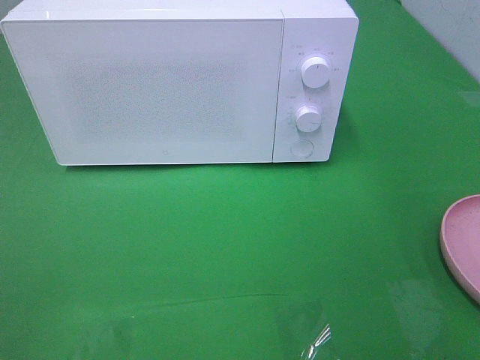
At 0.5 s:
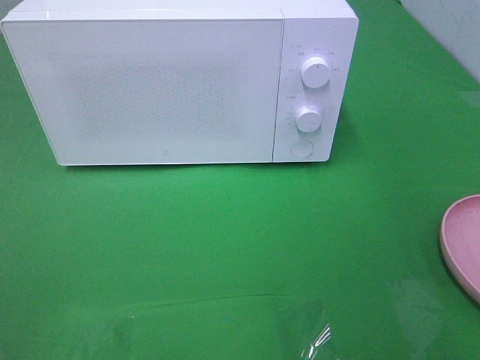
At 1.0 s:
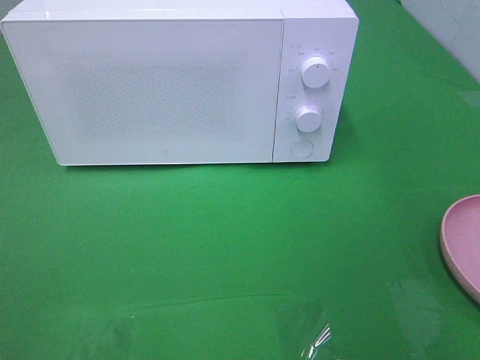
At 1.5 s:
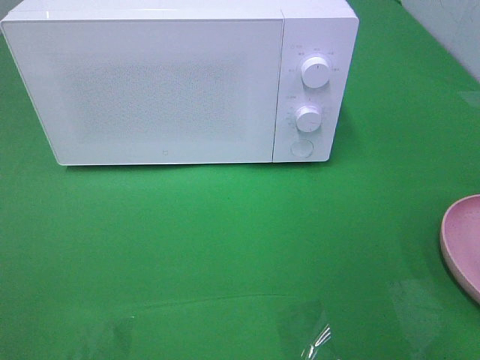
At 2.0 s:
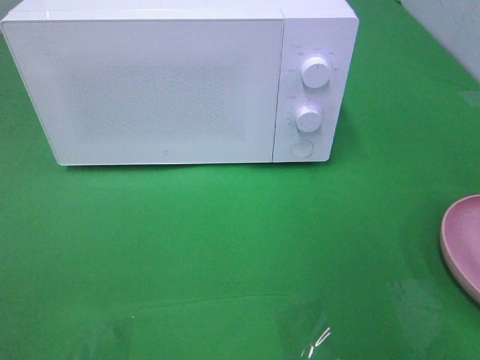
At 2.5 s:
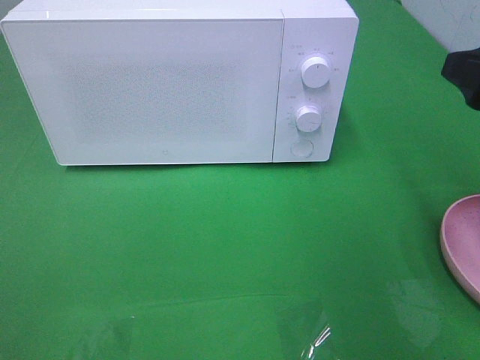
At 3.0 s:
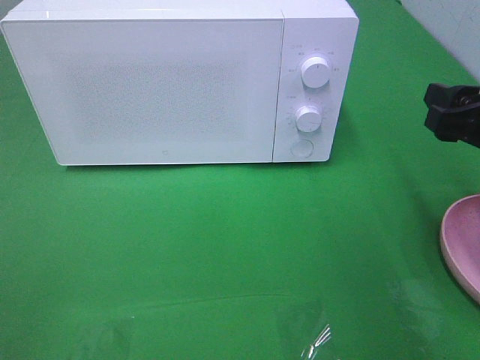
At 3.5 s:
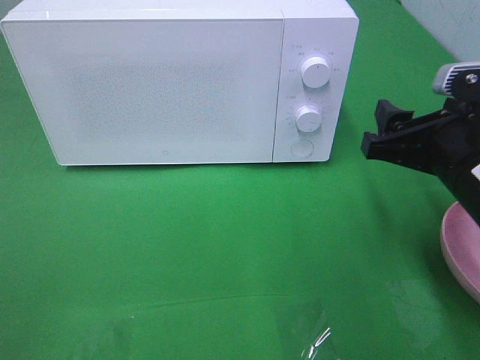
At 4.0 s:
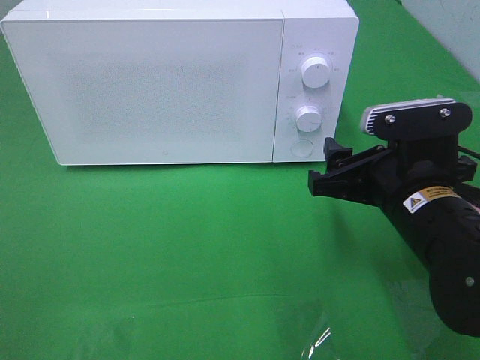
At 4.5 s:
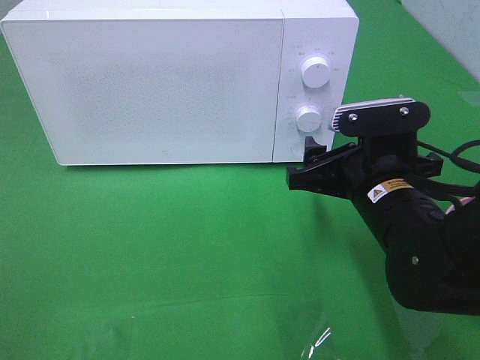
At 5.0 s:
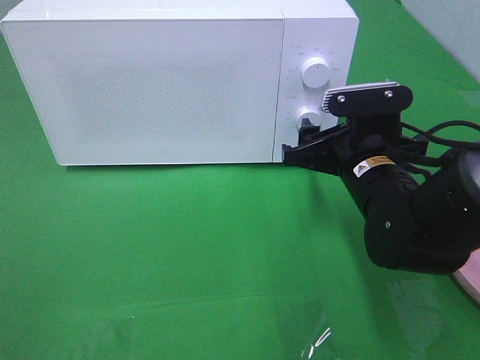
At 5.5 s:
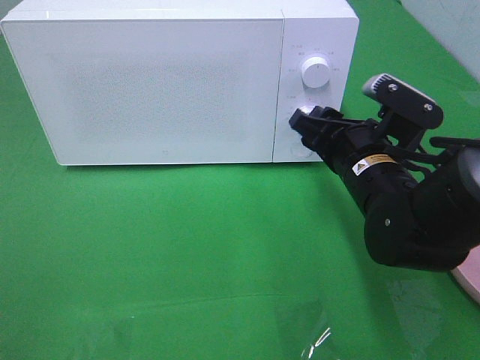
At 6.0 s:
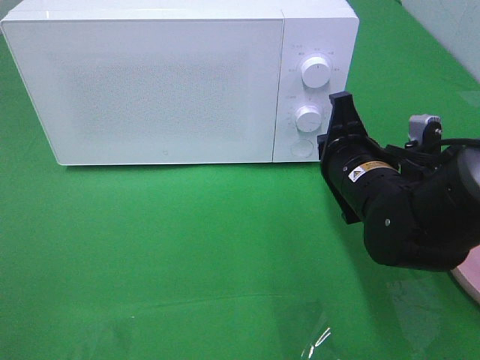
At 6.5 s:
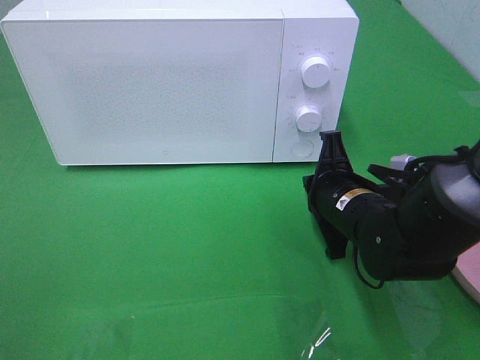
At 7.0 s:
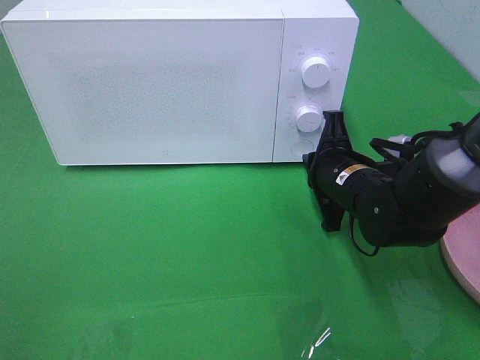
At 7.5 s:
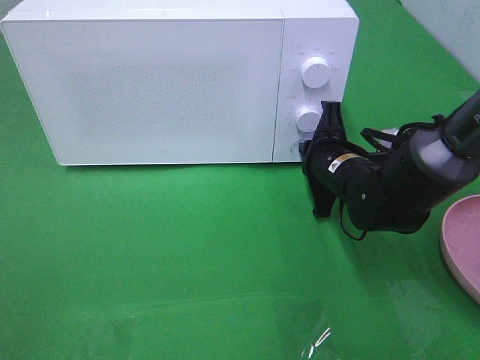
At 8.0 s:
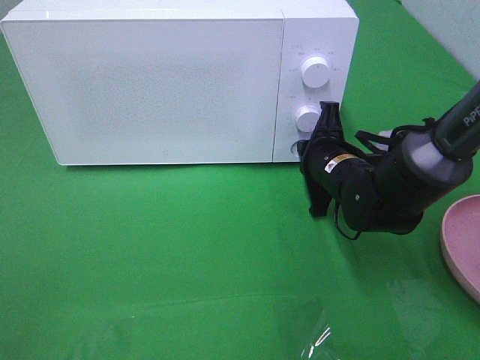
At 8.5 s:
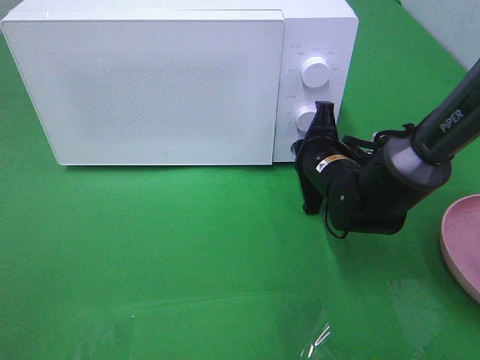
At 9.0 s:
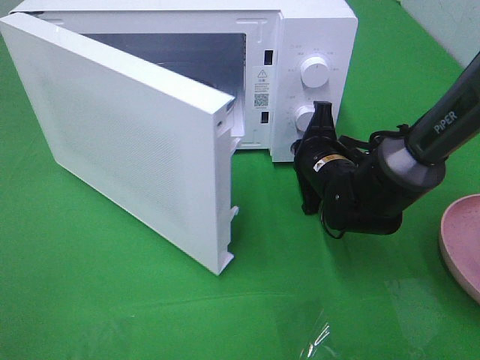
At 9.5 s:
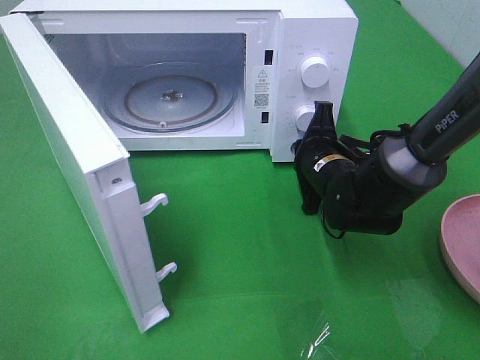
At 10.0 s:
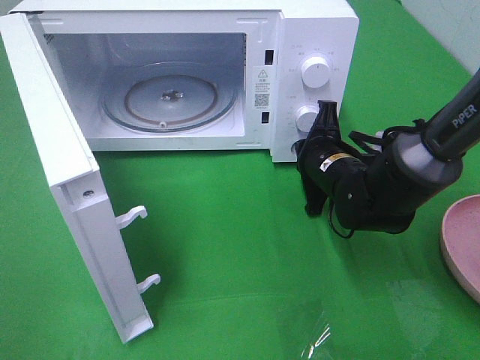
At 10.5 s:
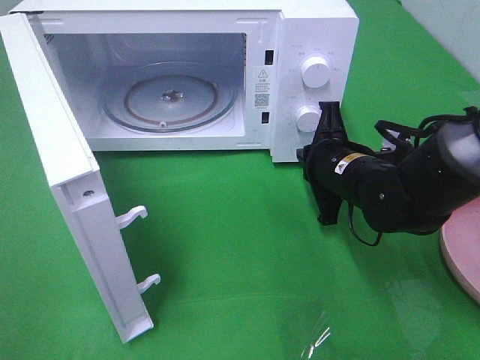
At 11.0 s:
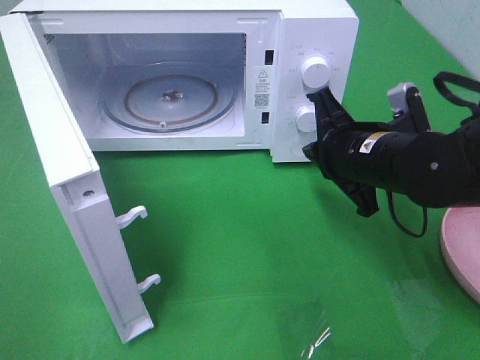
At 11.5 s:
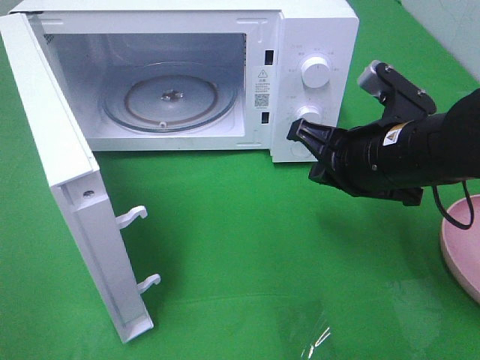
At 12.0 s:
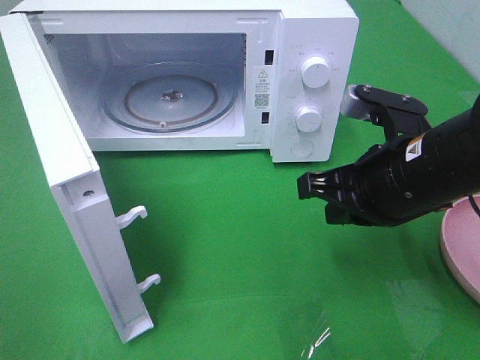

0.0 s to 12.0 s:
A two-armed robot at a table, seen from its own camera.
Task of the whole recording: Heat the burger.
Step, 0.0 to 10.5 s: Right hand: press the switch.
2.0 to 4.0 s: The right gripper shifts approximately 20 cm downward, to the left and forward.
4.0 to 6.0 s: The right gripper shifts roughly 5 cm forward, and closes up.
6.0 to 8.0 s: The right gripper heads forward, covering roughly 5 cm.
10.0 to 12.0 s: The right gripper heads backward and upward, covering approximately 15 cm.

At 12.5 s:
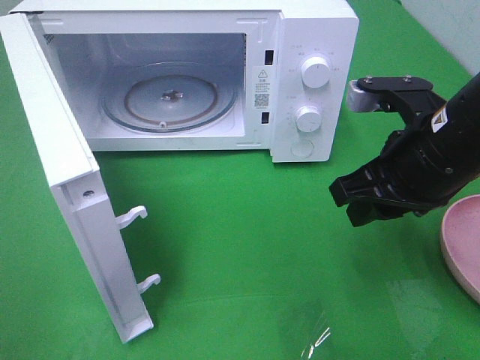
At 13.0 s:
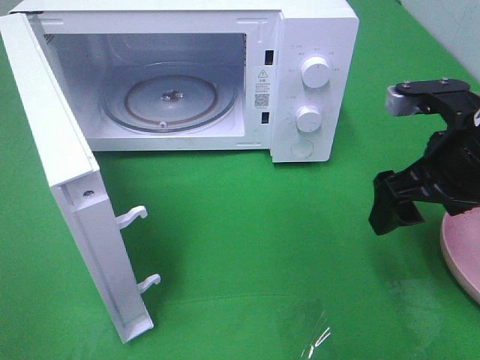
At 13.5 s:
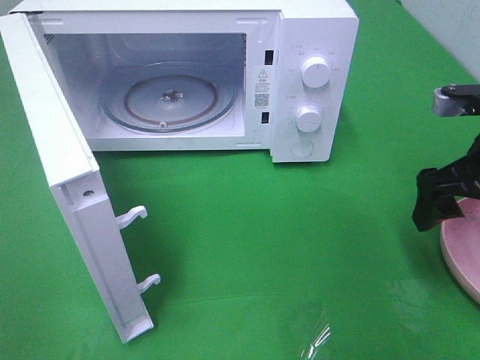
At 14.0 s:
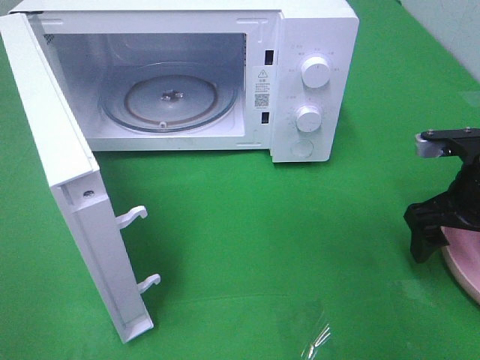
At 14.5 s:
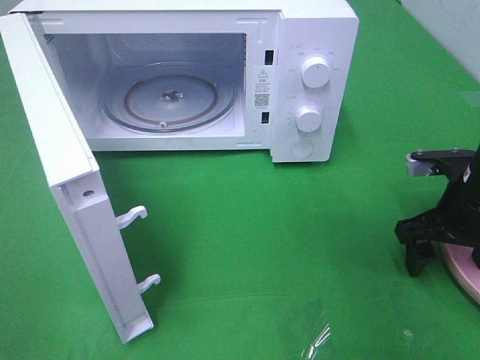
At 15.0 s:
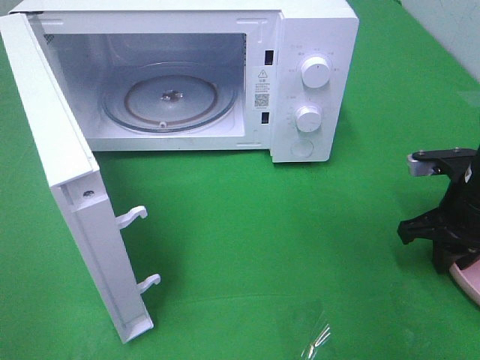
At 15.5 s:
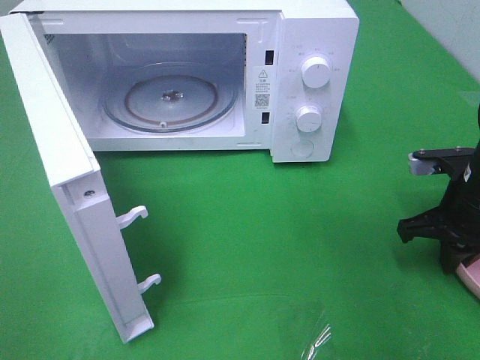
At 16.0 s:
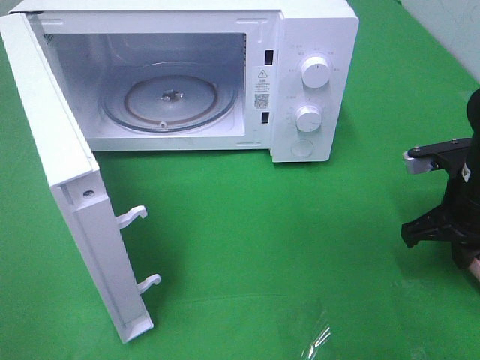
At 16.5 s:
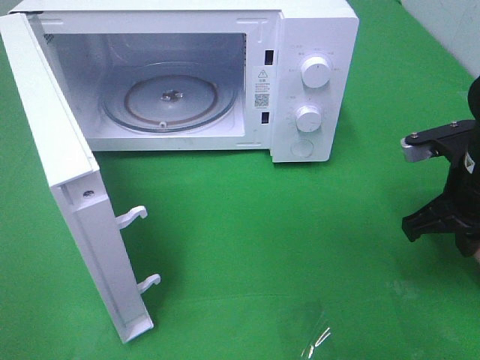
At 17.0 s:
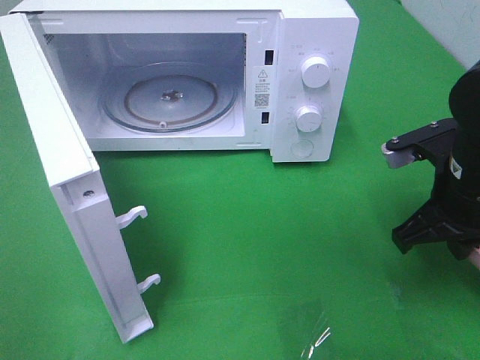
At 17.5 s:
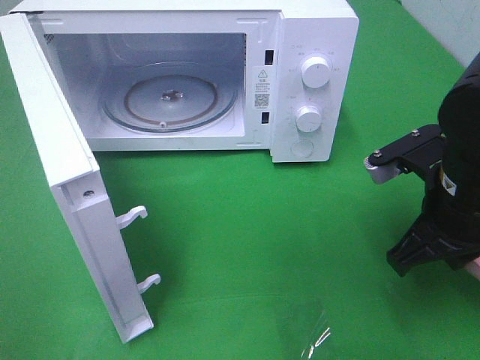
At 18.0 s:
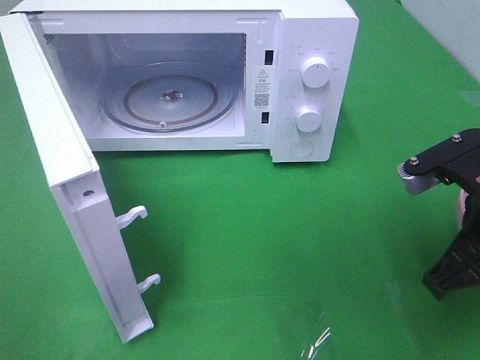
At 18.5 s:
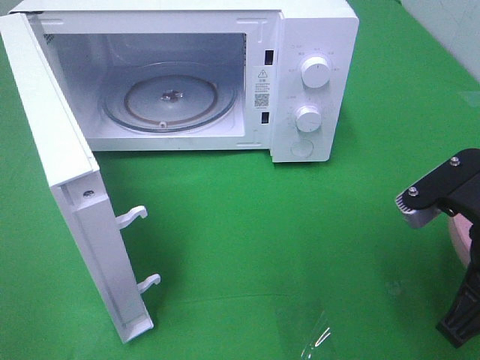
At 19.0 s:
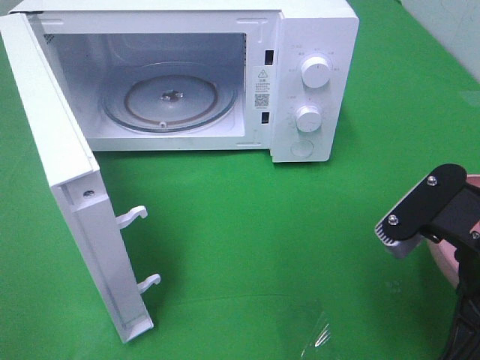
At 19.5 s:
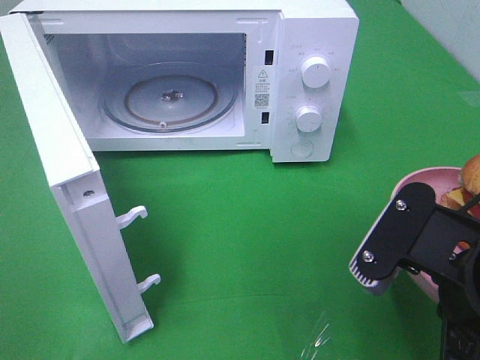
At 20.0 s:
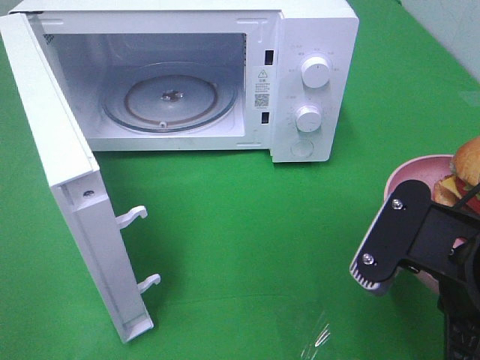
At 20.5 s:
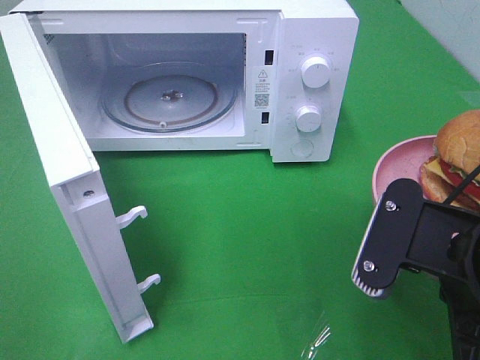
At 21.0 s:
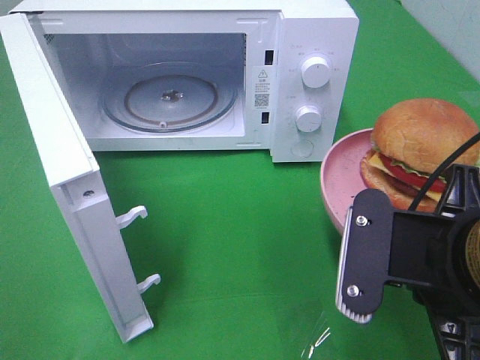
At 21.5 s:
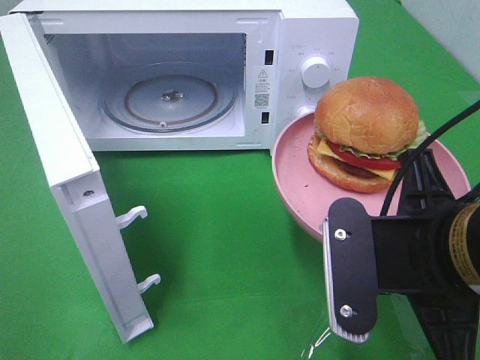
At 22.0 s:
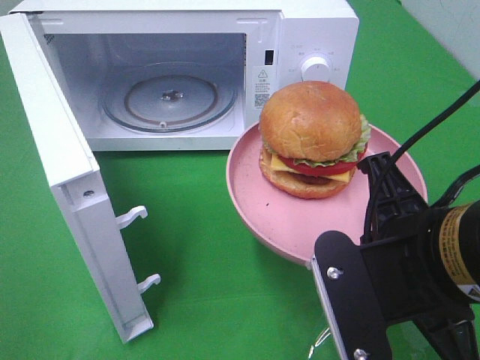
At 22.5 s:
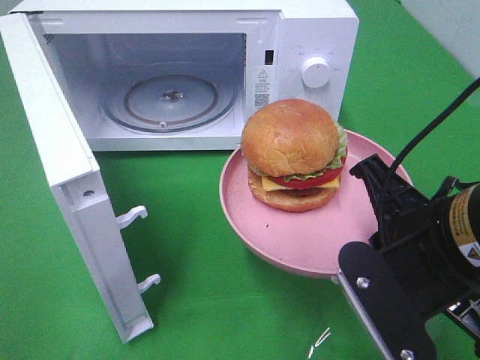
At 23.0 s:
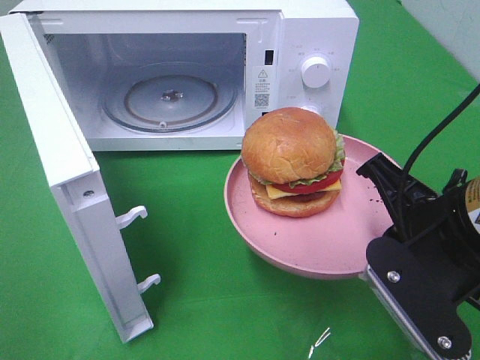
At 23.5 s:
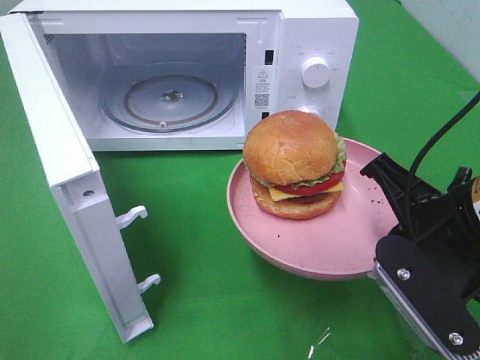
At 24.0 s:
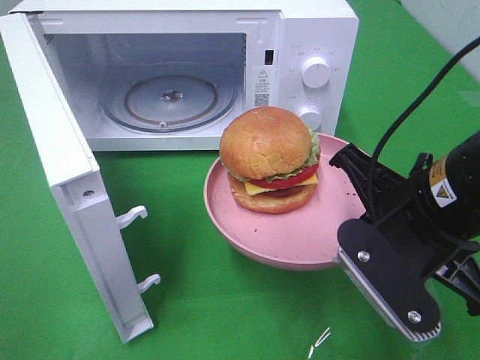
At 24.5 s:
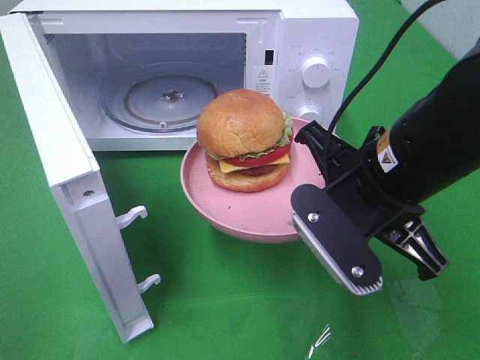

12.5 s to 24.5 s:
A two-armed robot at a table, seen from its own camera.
Task of the whole recording: Heat the burger.
Step, 12.5 to 15.5 s: Right hand: grab the plate with the hamburger.
12.5 to 14.5 s: The right gripper goes roughly 15 cm downward and to the right, and opens its fingers.
14.5 to 16.5 s: The right gripper is displaced upward by approximately 5 cm, and closes.
16.5 to 18.5 s: The right gripper travels backward by some 10 cm.
18.5 to 20.5 s: The right gripper changes place by roughly 5 cm.
22.5 to 24.5 s: The right gripper travels forward by roughly 5 cm.

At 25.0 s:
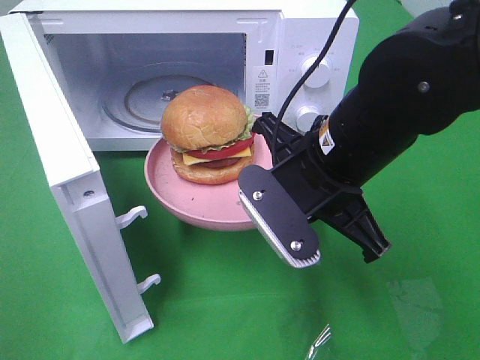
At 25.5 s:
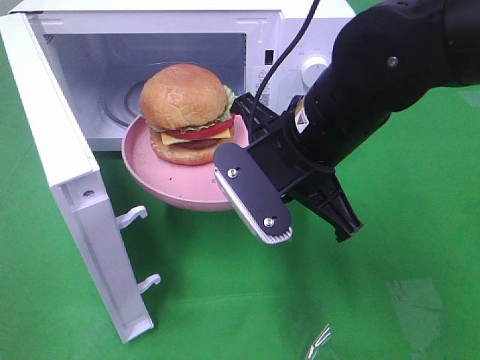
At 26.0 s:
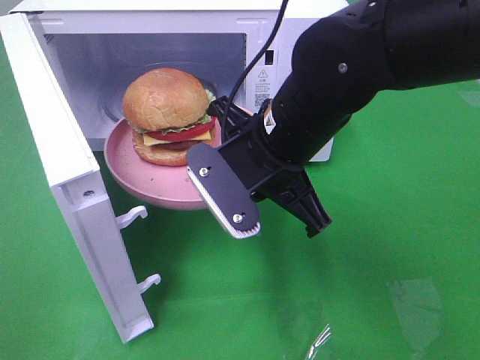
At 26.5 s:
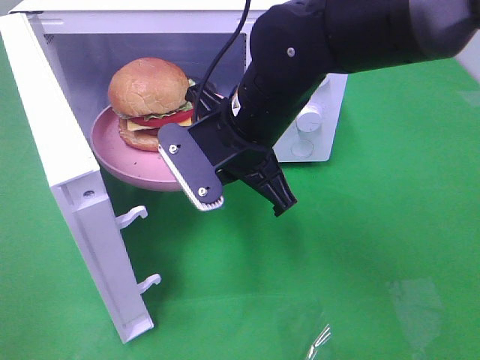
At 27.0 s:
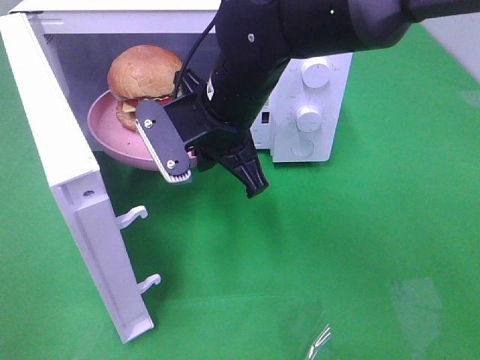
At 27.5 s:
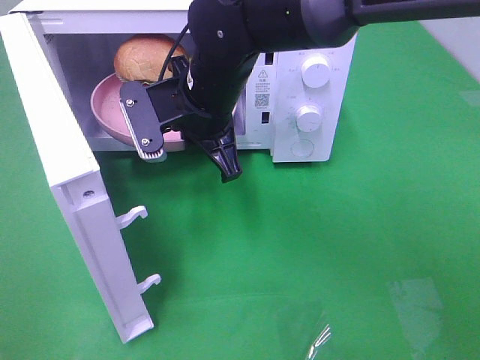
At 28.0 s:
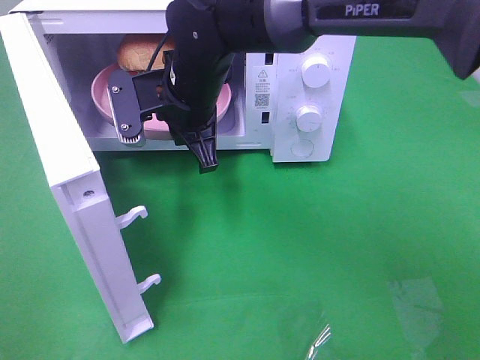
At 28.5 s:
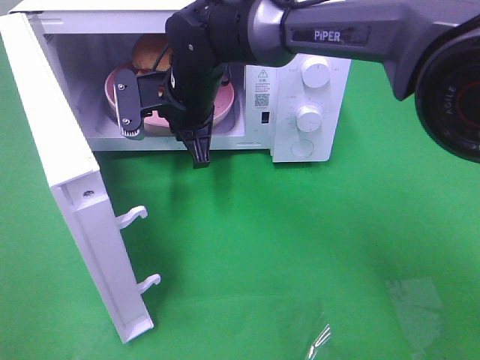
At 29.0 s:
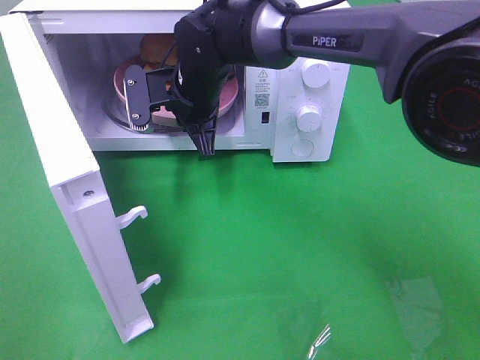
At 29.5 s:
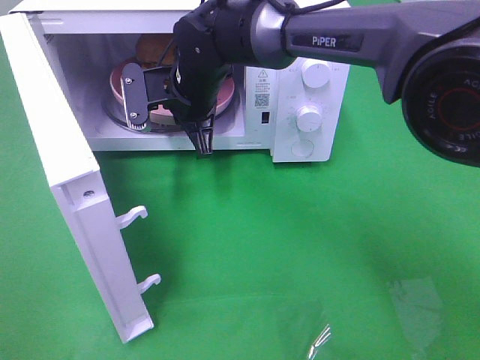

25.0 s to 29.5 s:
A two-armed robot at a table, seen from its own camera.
Task of the whole recording: Heat the burger.
25.0 to 27.0 s: The right gripper shifts some 10 cm to the left and forward.
27.0 to 29.5 s: The right gripper shifts some 10 cm forward.
